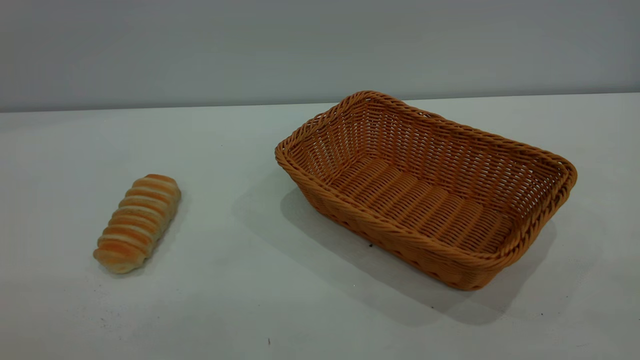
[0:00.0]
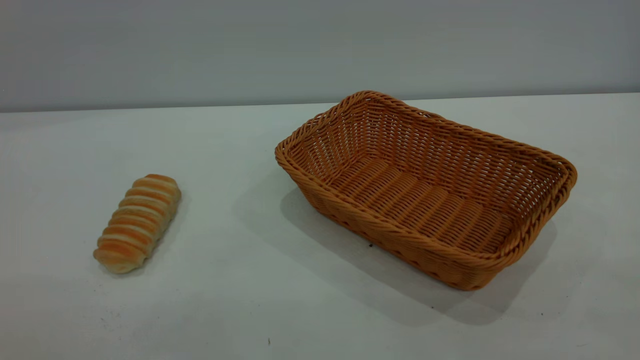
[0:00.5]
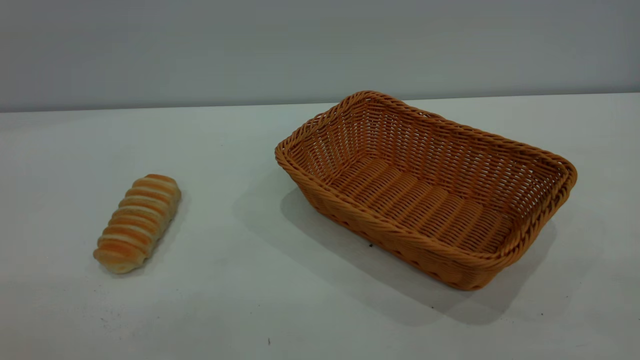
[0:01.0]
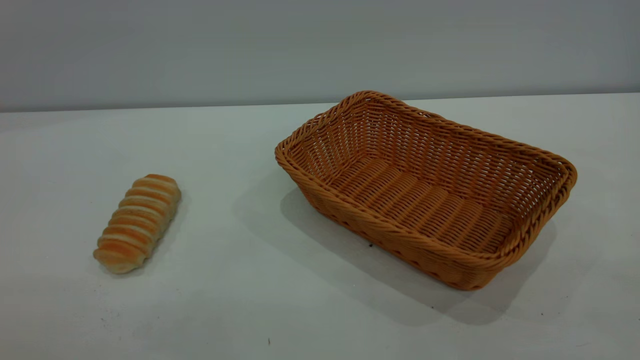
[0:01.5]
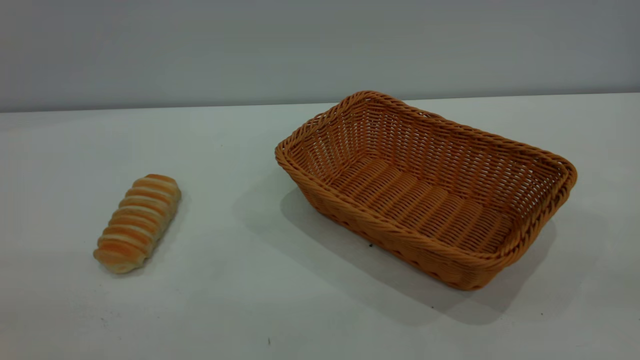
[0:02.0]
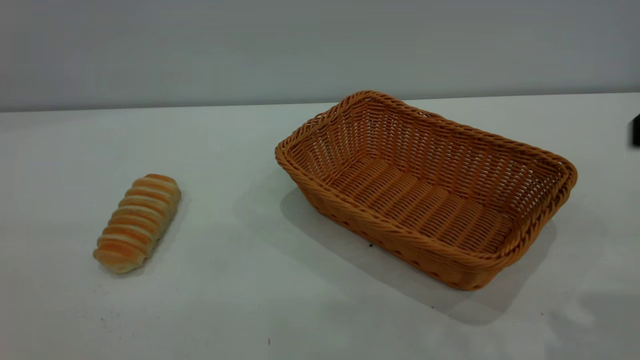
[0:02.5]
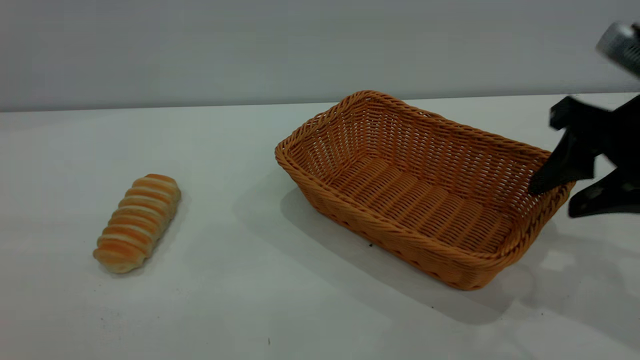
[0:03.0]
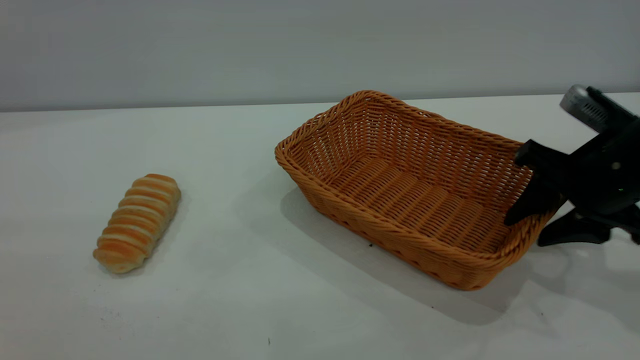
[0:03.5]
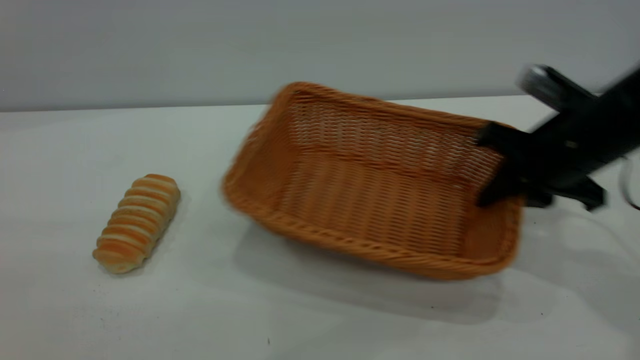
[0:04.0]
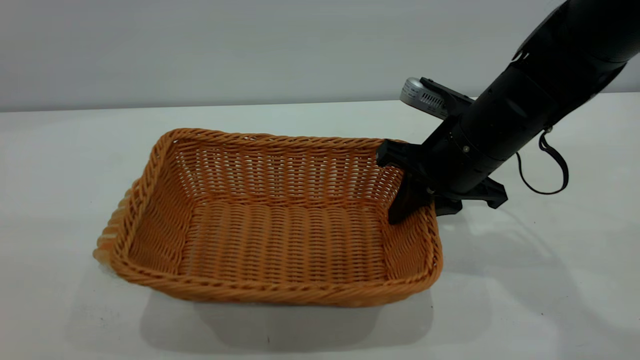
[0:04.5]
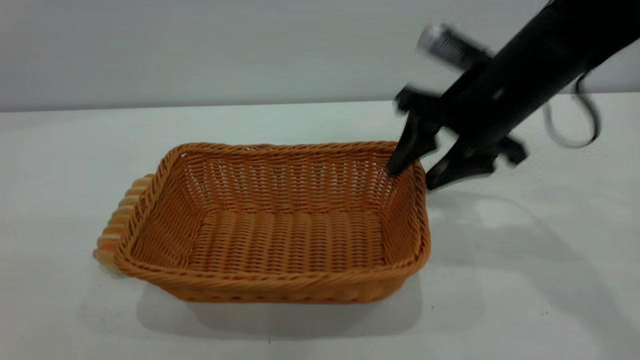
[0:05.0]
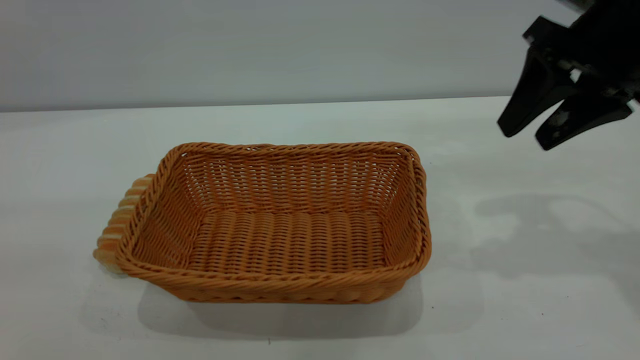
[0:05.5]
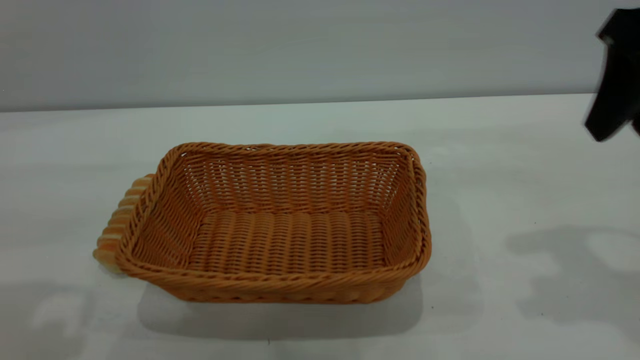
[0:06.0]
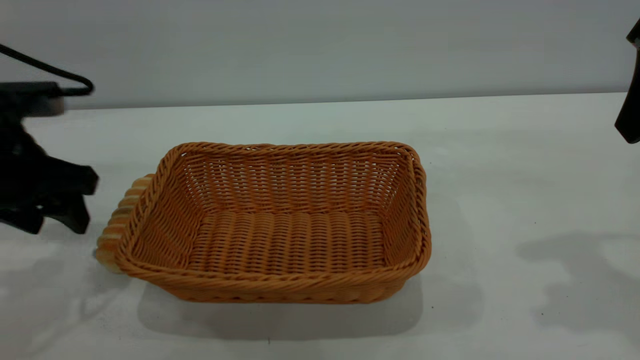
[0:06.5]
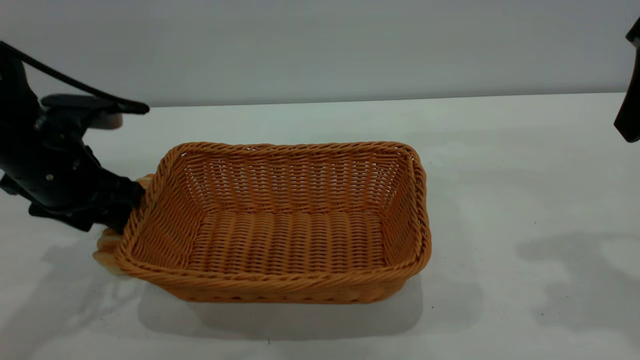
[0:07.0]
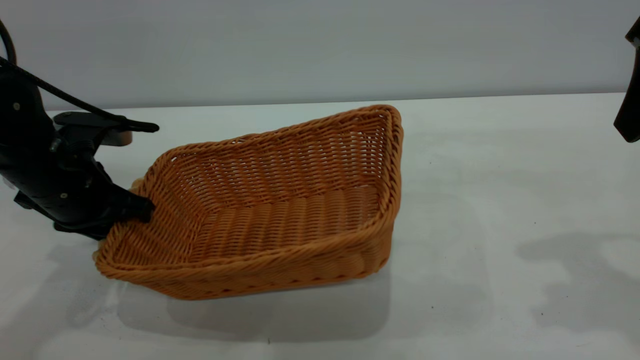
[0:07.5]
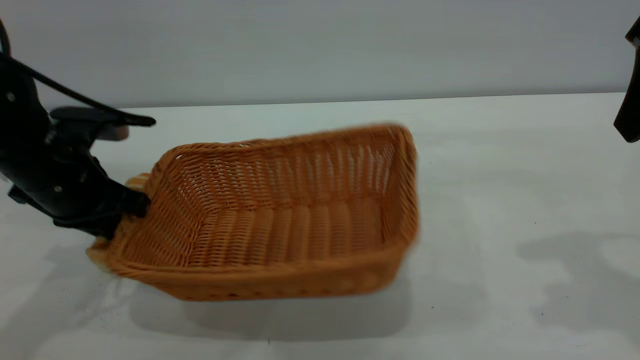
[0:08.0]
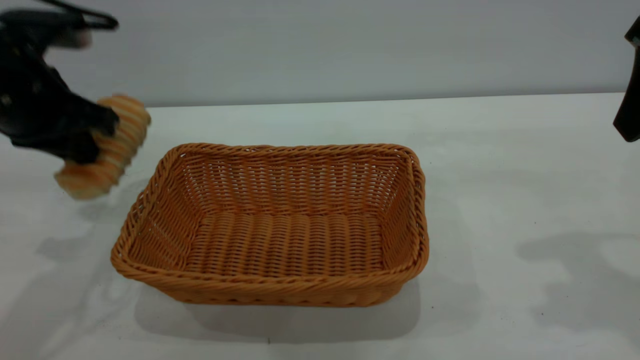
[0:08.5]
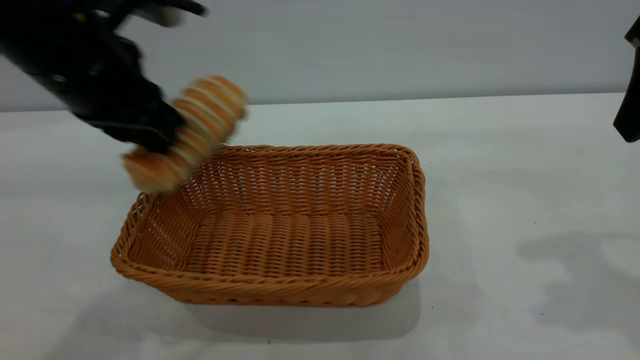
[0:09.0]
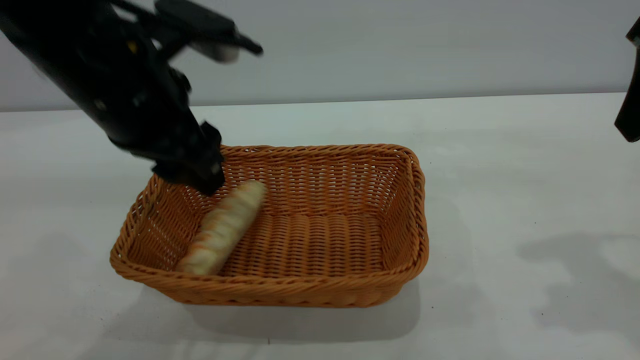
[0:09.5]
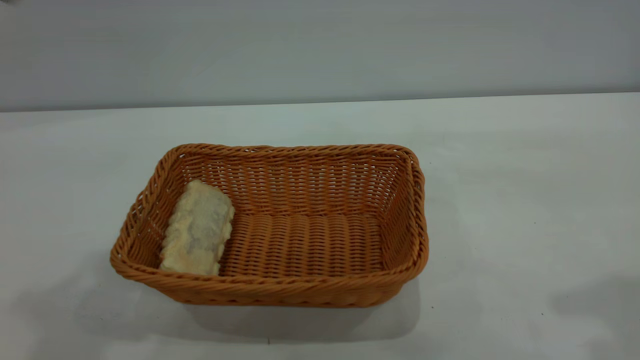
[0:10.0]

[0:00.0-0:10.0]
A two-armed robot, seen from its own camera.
Task of the whole recording: One hand grasps the yellow basket and places it in the middle of the table, while the other hand picks up the long bread and puts it into the yellow basket.
Step, 0:00.0 to 0:05.0: Move the basket to the center of view.
Step, 0:08.5 to 0:09.5: place the bread into the basket.
0:02.0 to 0:04.0: The right gripper moves forward and downward, some 35 cm, and closes.
0:04.0 to 0:06.0: The right gripper moves upward and backward, about 15 cm, and opens up, while the left gripper travels forward and downward by approximately 20 cm.
0:06.0 to 0:08.0: The left gripper heads downward and forward, covering some 20 cm, and closes.
0:08.0 to 0:10.0: The left gripper goes about 30 cm upward, and opens its fingers. The right gripper moves upward and backward, about 10 cm.
